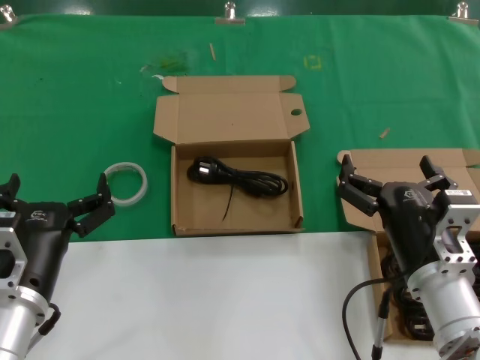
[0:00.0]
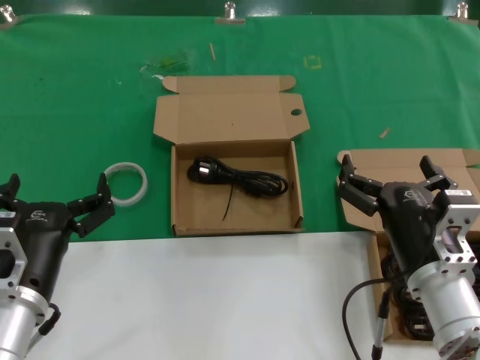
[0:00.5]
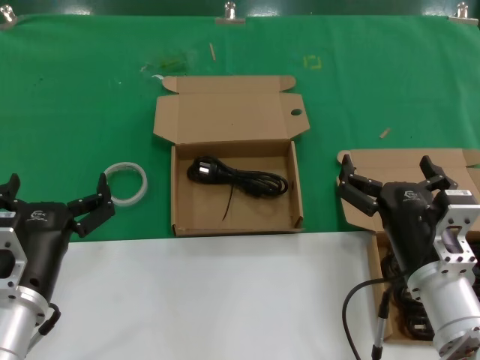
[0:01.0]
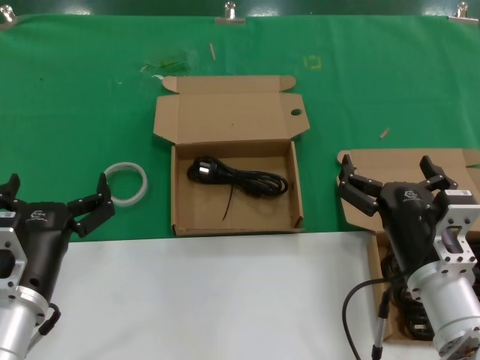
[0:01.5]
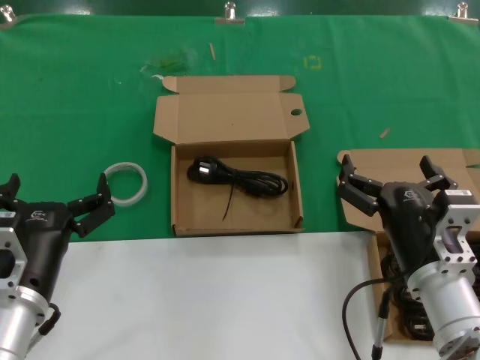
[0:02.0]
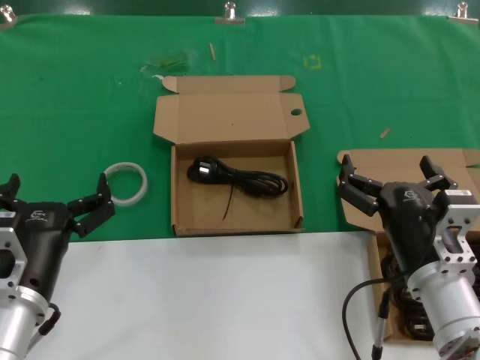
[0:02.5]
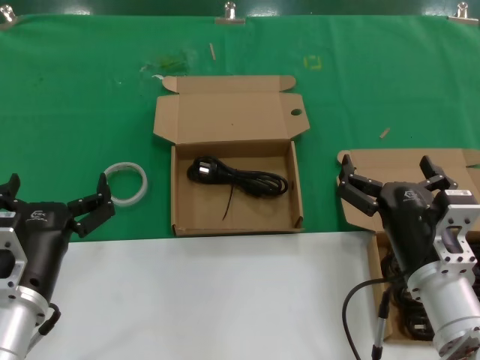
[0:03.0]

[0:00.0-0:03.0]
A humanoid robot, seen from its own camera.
Task of the whole recording: take the parts from the box containing them and put them into an empty box.
0:00.0 to 0:03.0: Both hands stay about where they are.
